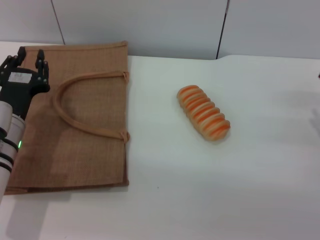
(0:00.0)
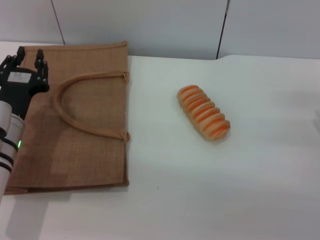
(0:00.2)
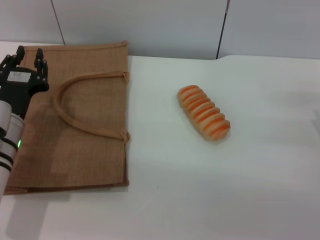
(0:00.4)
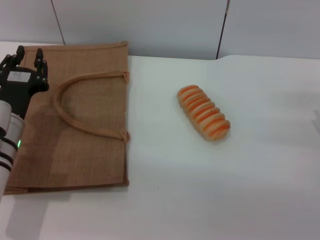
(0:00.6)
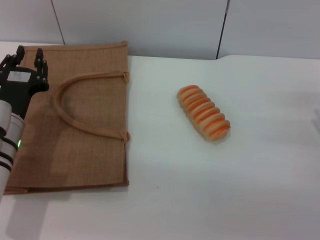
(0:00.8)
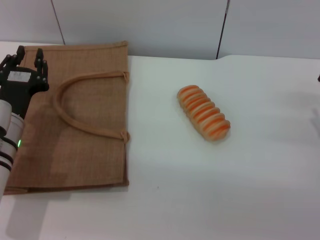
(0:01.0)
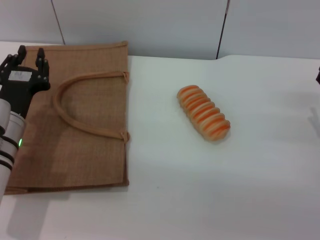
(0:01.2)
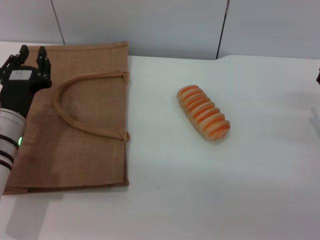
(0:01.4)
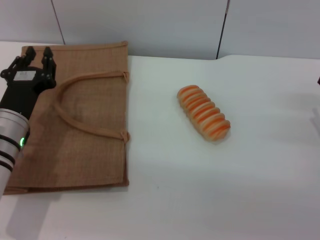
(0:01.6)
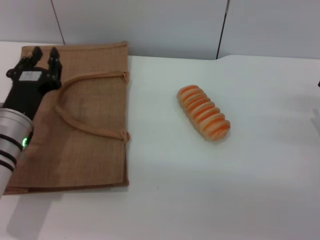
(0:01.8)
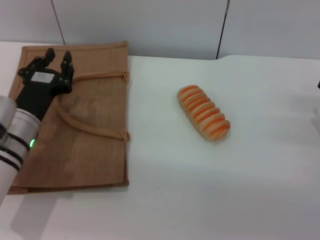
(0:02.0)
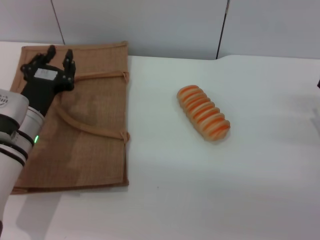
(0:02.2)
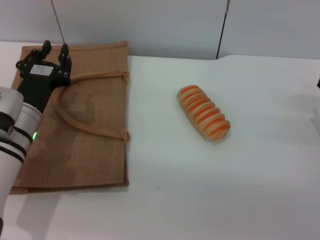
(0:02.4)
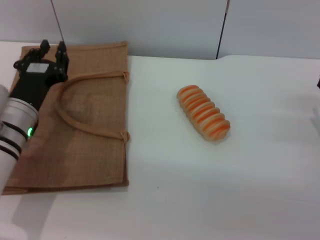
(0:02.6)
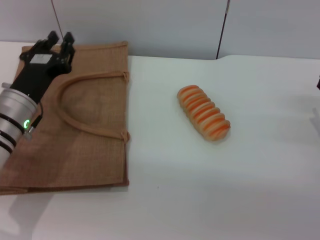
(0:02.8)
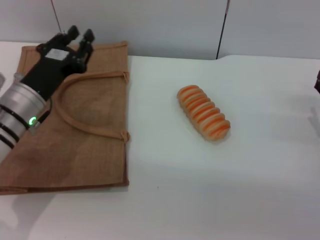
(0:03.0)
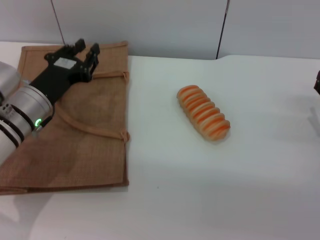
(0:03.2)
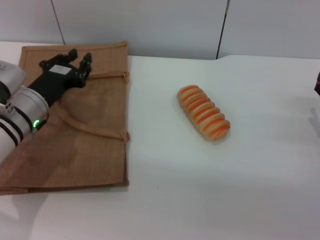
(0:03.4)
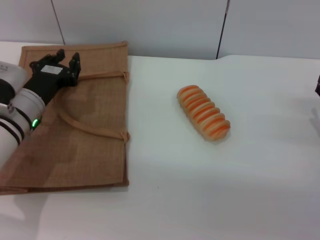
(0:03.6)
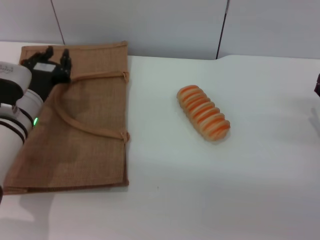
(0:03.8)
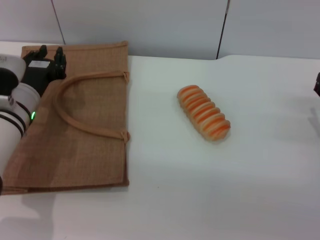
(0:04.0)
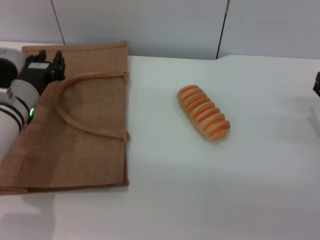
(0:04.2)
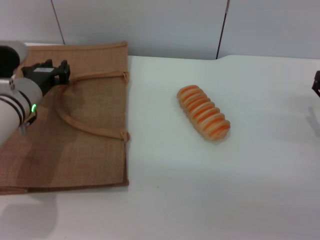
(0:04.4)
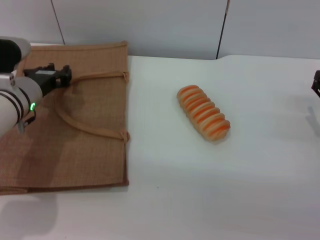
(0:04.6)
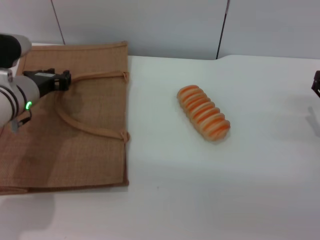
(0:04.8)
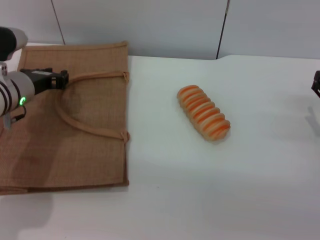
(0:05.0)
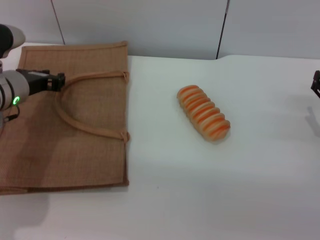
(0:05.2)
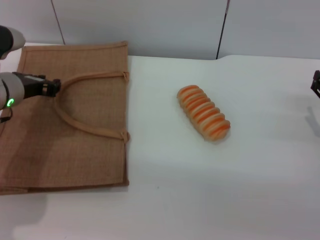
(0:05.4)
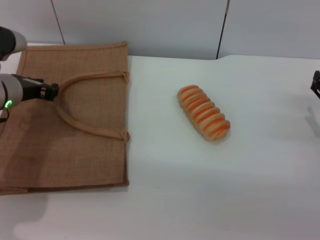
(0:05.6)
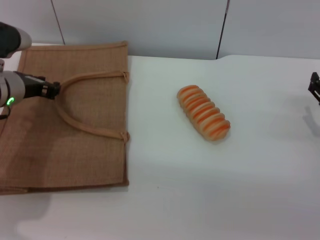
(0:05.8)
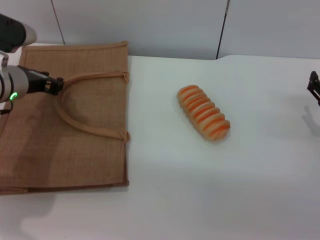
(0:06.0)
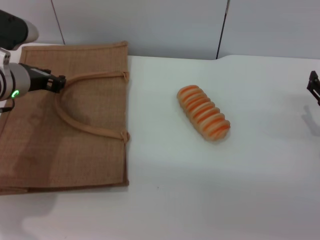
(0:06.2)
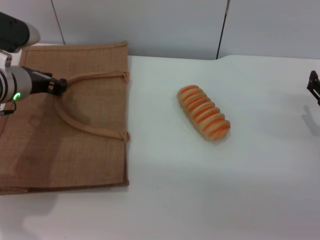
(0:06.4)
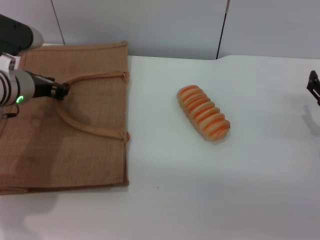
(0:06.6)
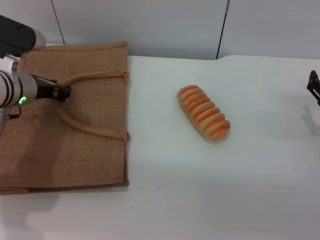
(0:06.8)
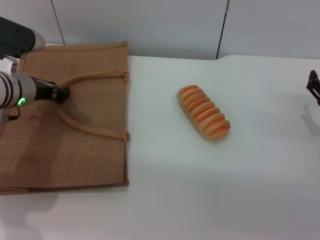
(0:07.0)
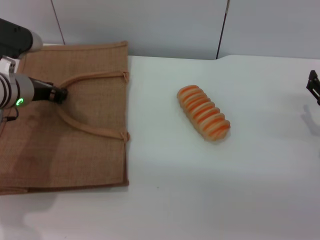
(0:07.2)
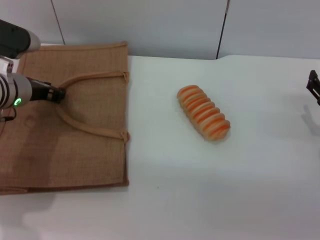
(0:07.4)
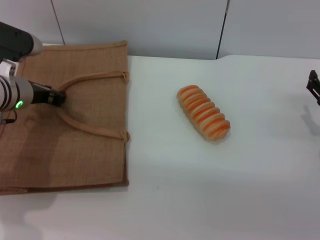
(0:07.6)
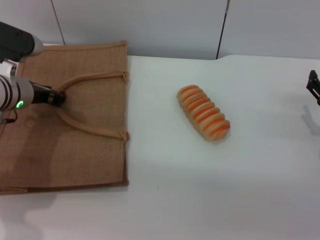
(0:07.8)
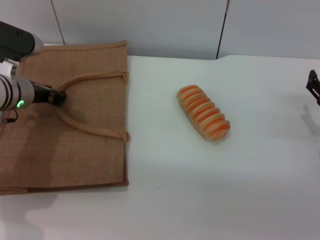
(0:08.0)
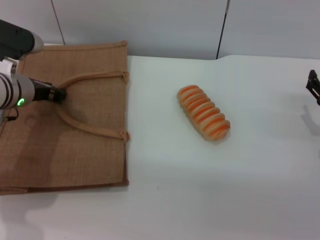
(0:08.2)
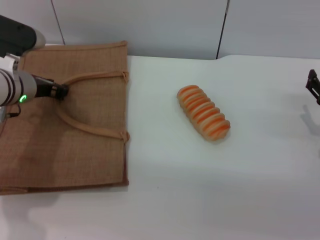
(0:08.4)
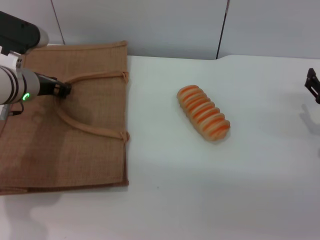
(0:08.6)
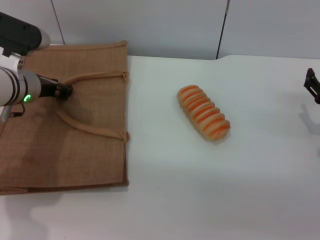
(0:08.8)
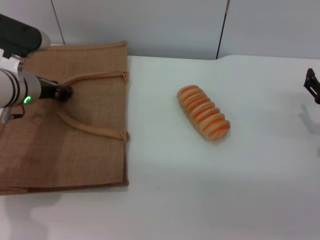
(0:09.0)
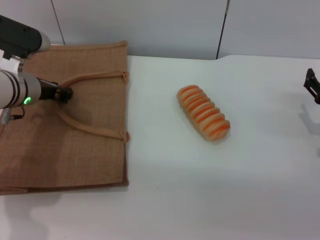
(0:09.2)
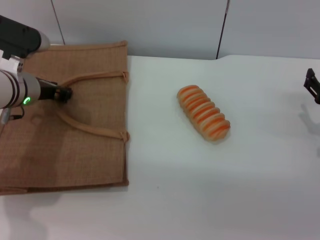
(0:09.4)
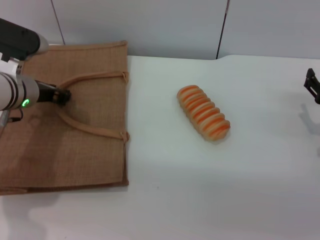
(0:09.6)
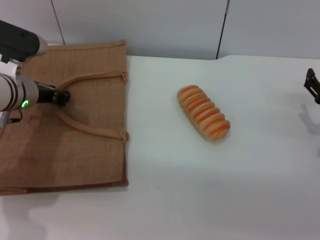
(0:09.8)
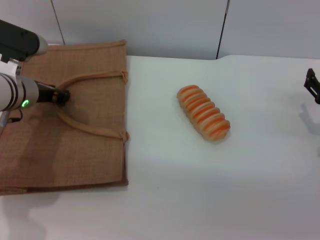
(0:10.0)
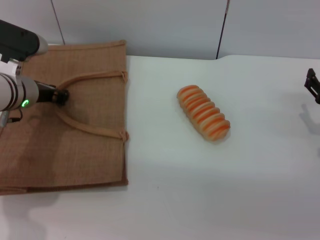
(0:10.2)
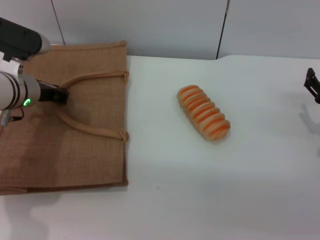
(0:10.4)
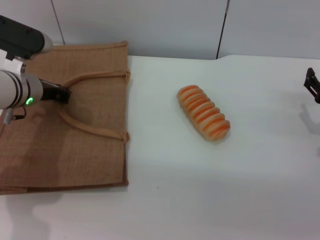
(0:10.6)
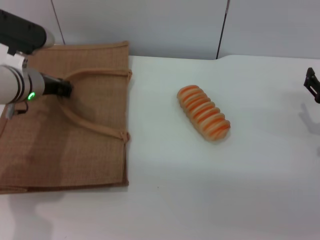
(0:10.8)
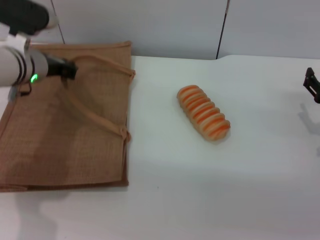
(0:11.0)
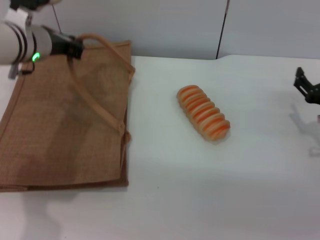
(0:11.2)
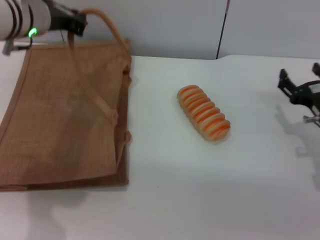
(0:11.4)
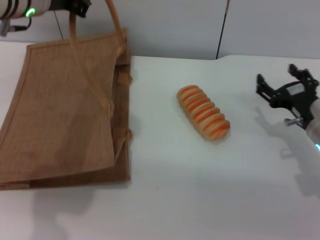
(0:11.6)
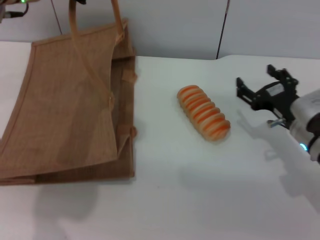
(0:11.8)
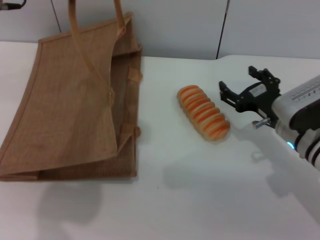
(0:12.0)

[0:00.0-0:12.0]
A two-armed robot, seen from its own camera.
Task of the whole recording: pick up the bread from the table and place it in the brown handbag.
Step, 0:00.0 to 0:11.4: Lift the woven bag with the left gripper to open it.
0:00.0 to 0:01.6: The grippers stay close to where they were, moving slightly.
0:04.4 to 0:06.0: The left gripper moves some 5 cm.
0:06.0 to 0:09.0: The grippers stay close to where they were, moving slightly.
0:09.0 to 0:10.4: The two grippers keep their place.
0:10.4 to 0:12.0: The left gripper goes some 20 cm upward, while the right gripper travels to the left by about 10 cm.

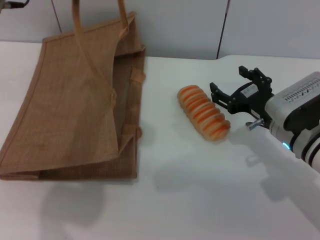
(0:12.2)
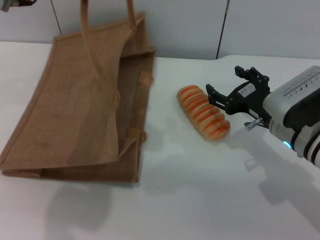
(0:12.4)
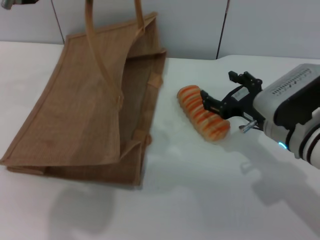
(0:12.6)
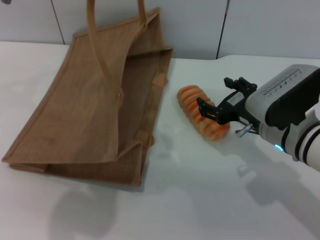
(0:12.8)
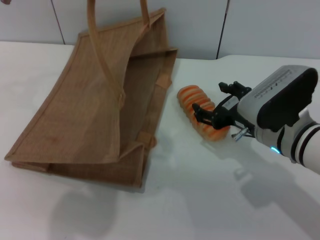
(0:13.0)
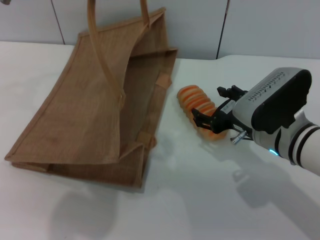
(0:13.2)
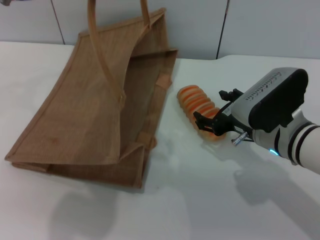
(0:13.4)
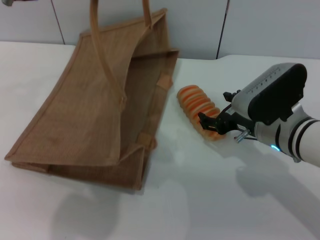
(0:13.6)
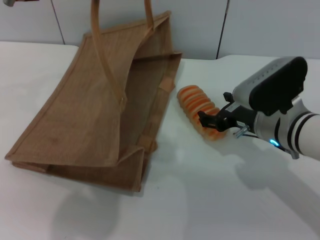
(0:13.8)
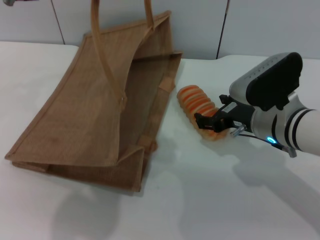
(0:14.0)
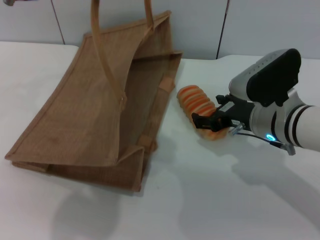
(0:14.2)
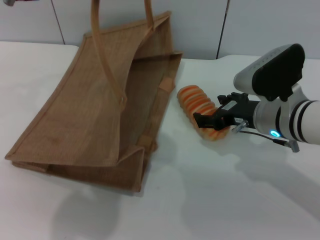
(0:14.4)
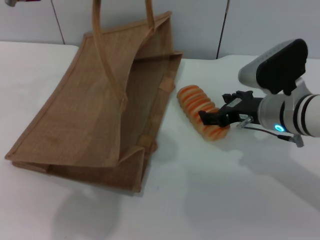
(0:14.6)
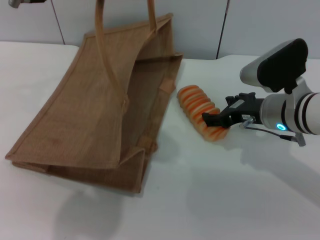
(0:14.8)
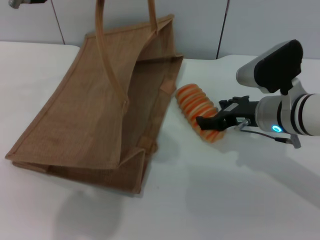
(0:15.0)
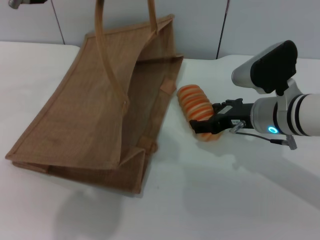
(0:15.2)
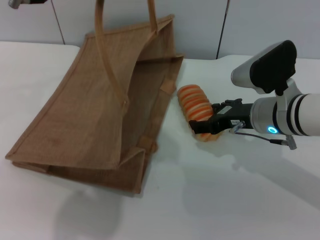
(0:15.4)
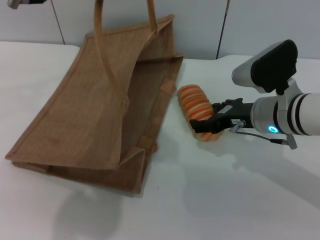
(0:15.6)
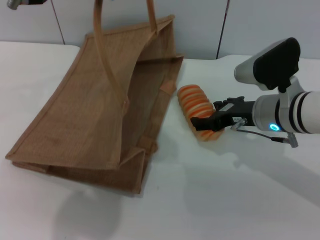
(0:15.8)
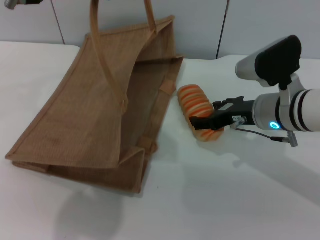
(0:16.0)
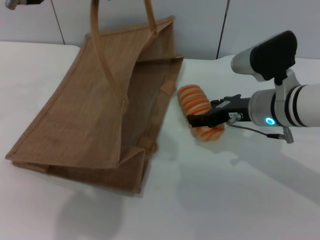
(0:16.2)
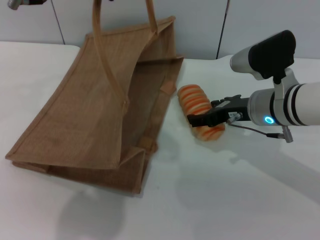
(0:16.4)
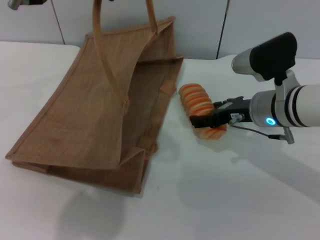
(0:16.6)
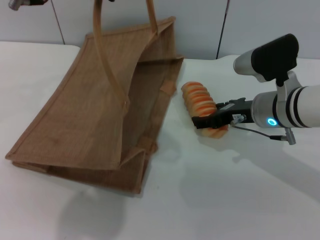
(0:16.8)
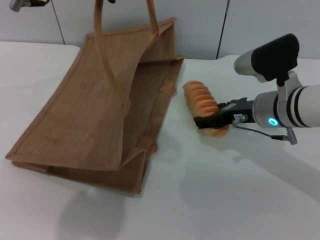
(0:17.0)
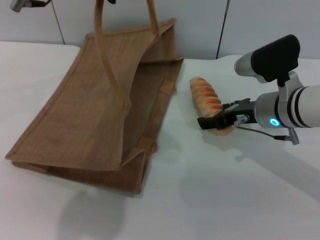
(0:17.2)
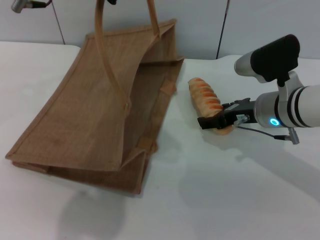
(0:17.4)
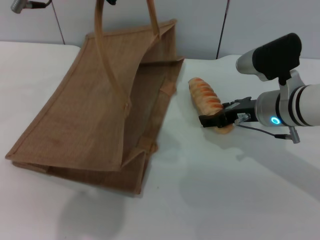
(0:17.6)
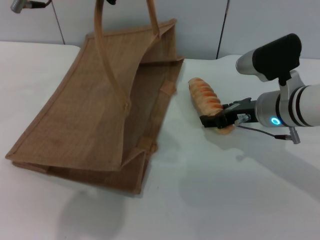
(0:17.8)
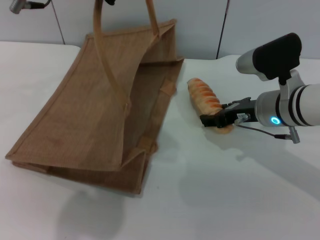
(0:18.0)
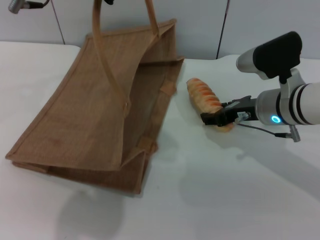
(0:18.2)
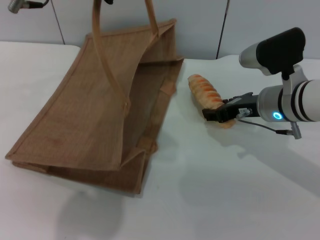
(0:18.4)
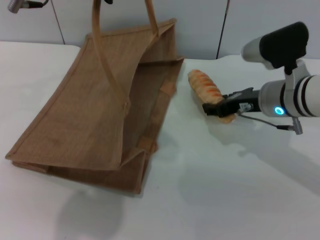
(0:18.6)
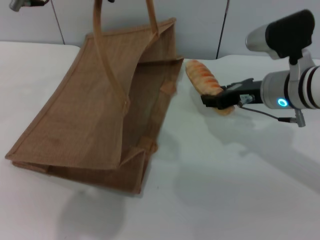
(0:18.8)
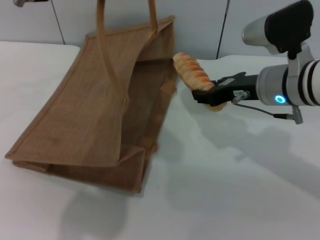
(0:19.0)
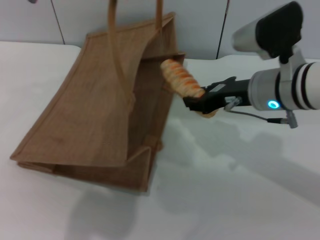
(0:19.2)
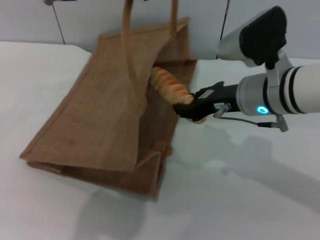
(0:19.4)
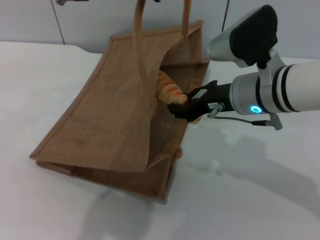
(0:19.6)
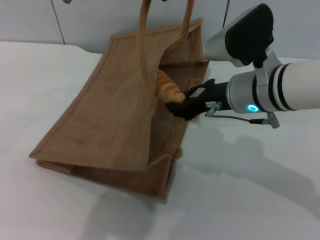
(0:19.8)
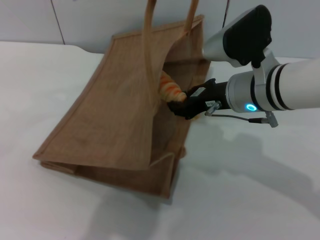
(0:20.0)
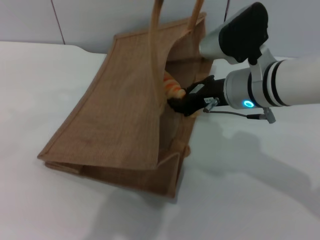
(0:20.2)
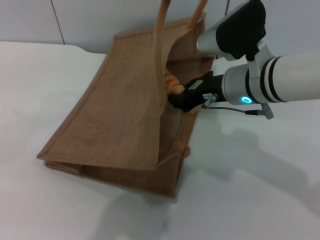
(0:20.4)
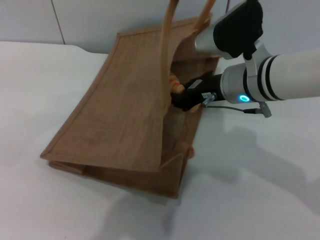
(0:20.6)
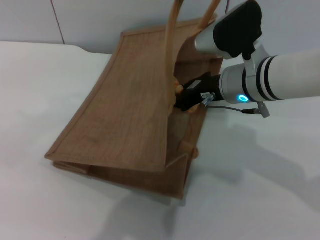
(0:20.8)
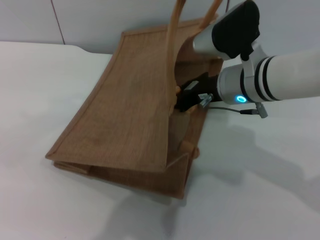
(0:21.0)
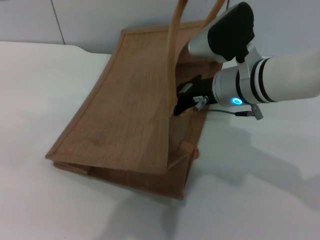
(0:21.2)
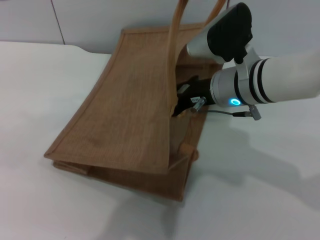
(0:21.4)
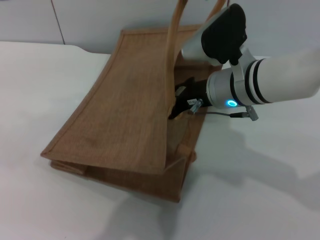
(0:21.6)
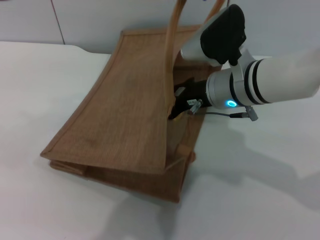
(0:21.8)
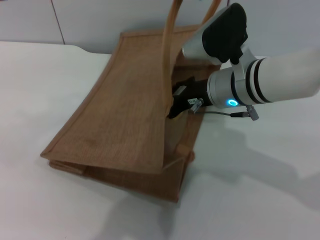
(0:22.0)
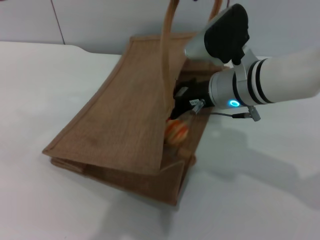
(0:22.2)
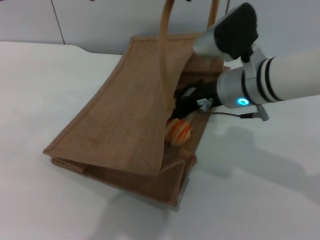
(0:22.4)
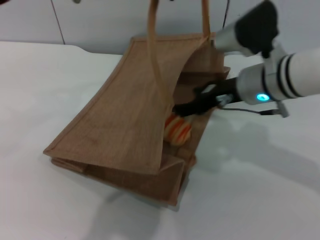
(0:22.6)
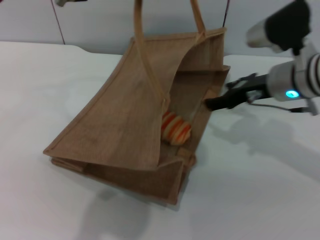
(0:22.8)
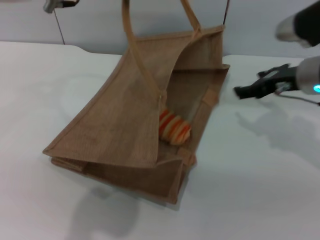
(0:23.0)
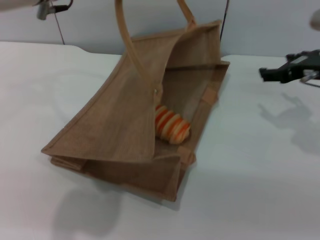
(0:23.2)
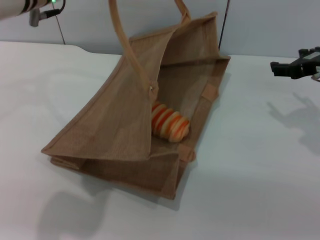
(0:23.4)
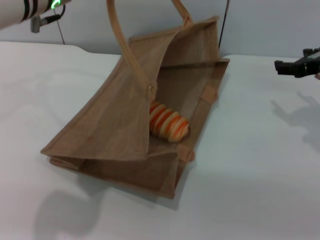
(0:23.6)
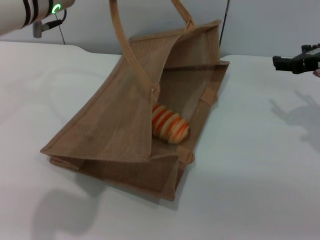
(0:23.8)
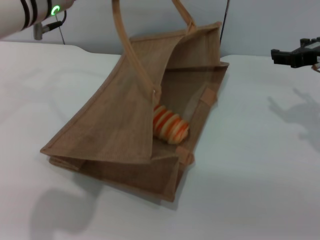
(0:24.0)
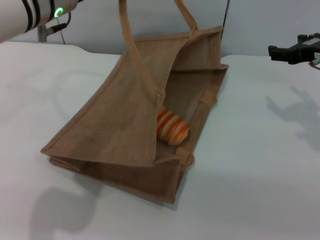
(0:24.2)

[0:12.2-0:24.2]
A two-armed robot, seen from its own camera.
Task of the whole recording: pick up the bread from the table and place it in the brown handbag.
Step, 0:12.2 to 0:19.0: Pick up the bread with the right gripper.
Step, 0:19.2 to 0:22.4: Place the bread into the woven bag with the right gripper.
0:13.8 to 0:16.6: The grippers move only a little.
0:16.6 to 0:18.2: Both grippers stay put.
0:18.2 to 0:19.8: The right gripper goes about 5 cm upward, and closes. The left gripper moves to the right, about 5 cm.
0:21.2 to 0:22.6: The right gripper opens.
0:22.6 to 0:24.2: The left gripper is displaced to the left and downward by about 10 cm, and opens its fingers. The right gripper travels to the right by about 15 cm.
